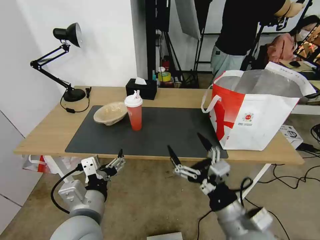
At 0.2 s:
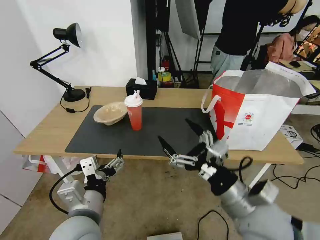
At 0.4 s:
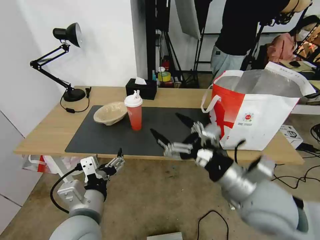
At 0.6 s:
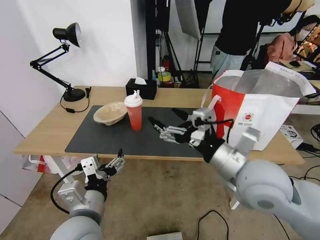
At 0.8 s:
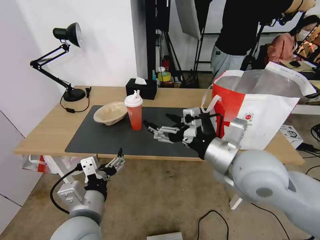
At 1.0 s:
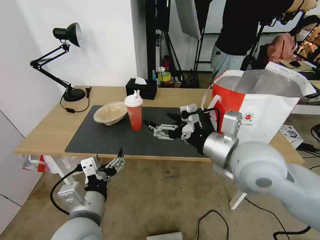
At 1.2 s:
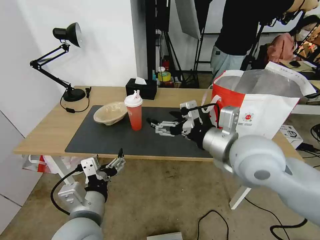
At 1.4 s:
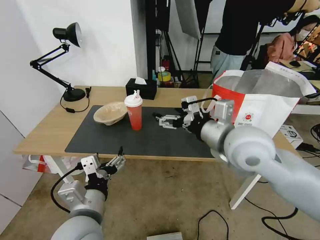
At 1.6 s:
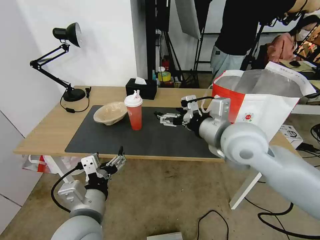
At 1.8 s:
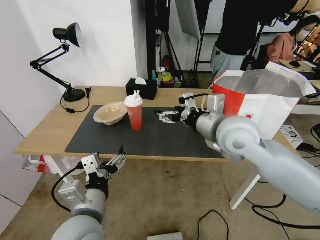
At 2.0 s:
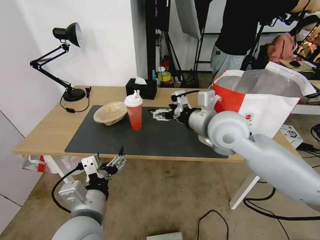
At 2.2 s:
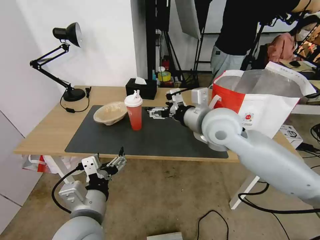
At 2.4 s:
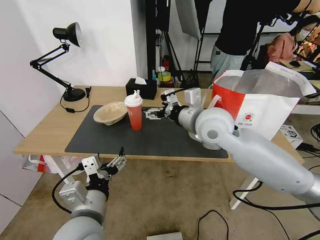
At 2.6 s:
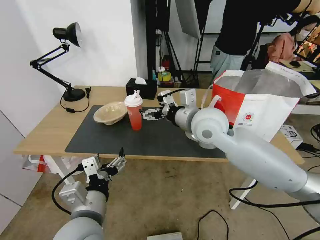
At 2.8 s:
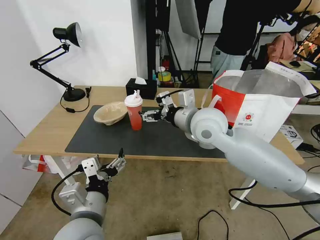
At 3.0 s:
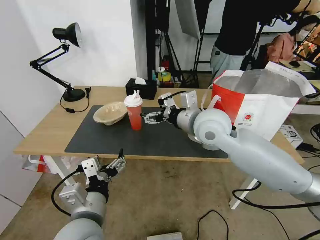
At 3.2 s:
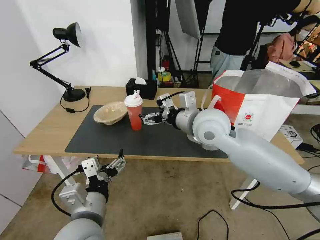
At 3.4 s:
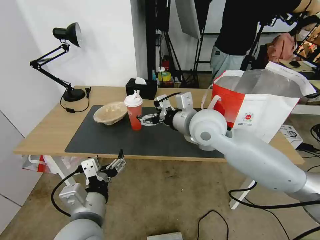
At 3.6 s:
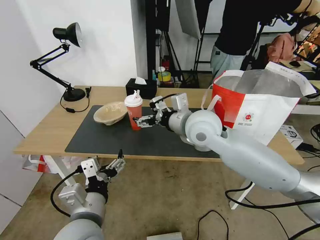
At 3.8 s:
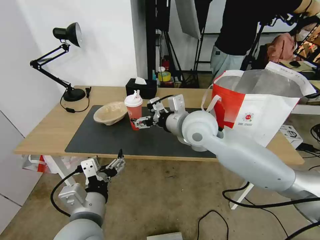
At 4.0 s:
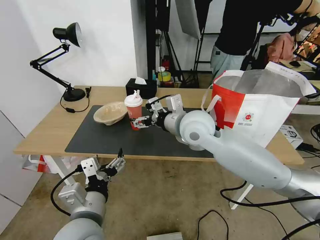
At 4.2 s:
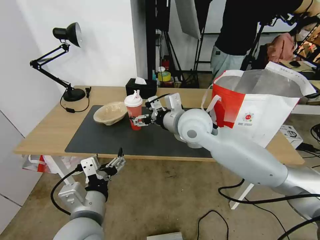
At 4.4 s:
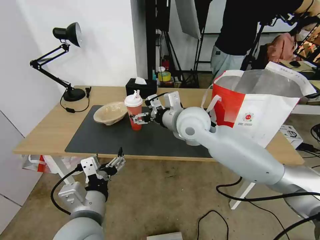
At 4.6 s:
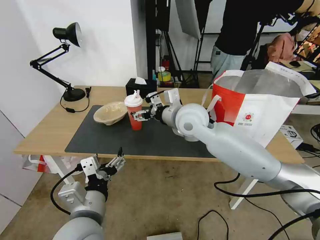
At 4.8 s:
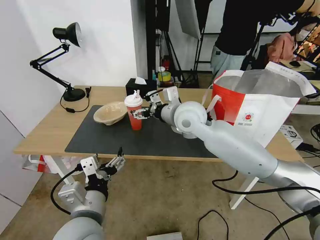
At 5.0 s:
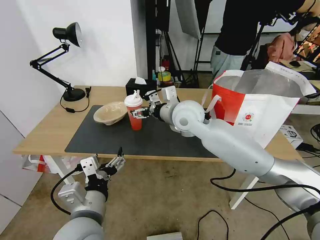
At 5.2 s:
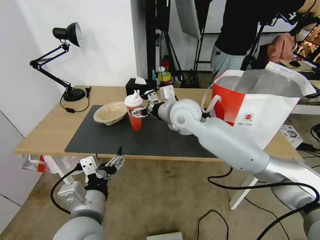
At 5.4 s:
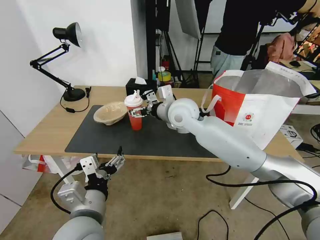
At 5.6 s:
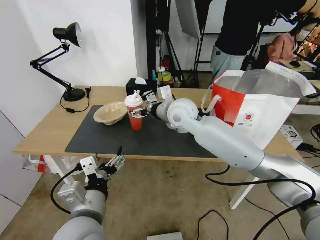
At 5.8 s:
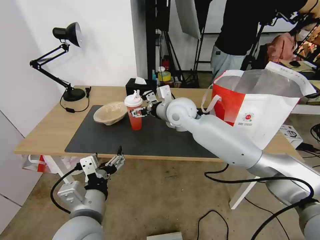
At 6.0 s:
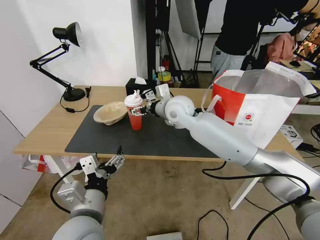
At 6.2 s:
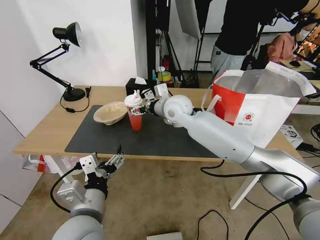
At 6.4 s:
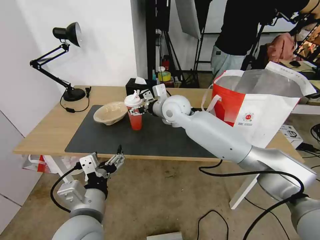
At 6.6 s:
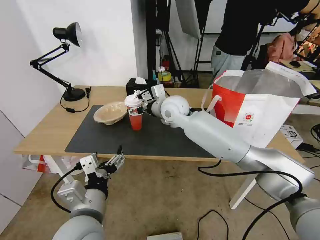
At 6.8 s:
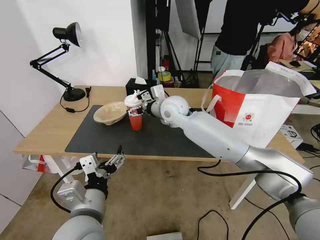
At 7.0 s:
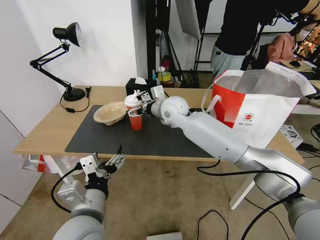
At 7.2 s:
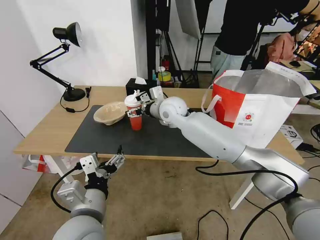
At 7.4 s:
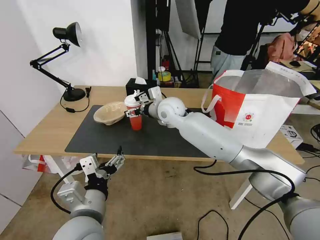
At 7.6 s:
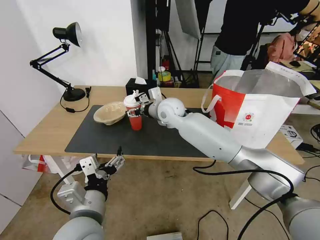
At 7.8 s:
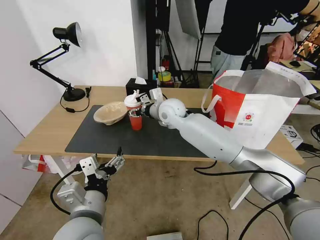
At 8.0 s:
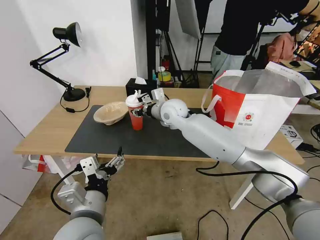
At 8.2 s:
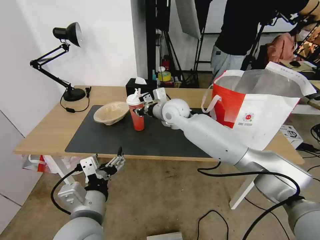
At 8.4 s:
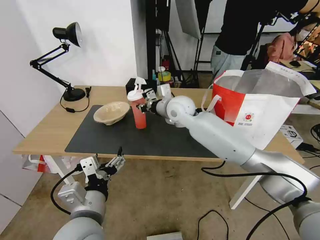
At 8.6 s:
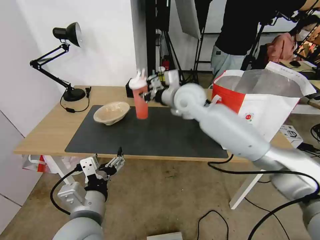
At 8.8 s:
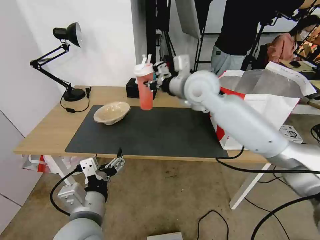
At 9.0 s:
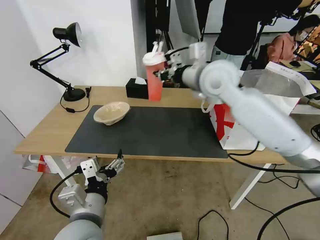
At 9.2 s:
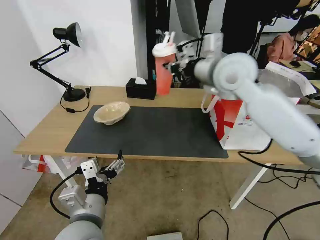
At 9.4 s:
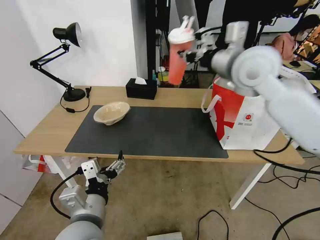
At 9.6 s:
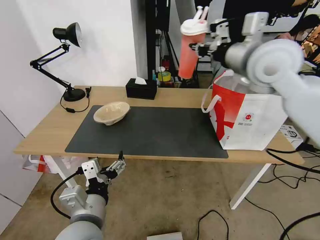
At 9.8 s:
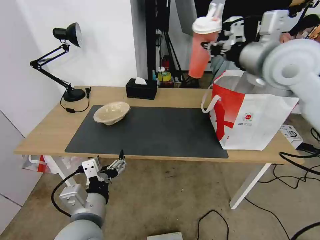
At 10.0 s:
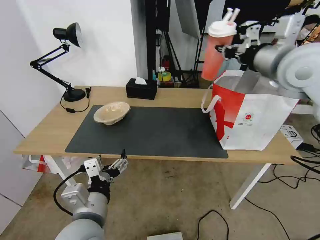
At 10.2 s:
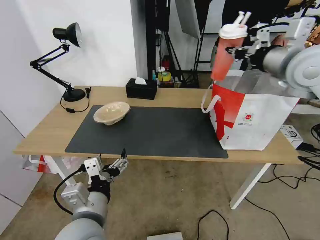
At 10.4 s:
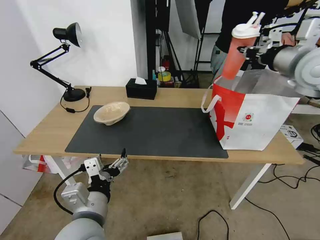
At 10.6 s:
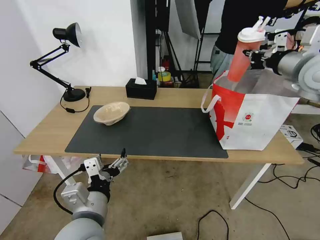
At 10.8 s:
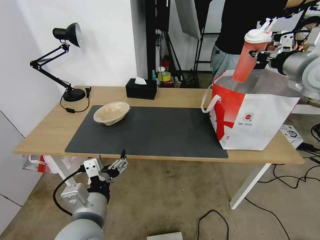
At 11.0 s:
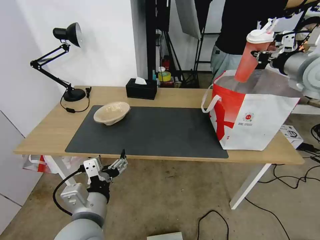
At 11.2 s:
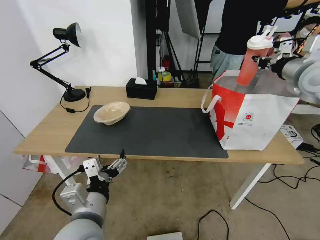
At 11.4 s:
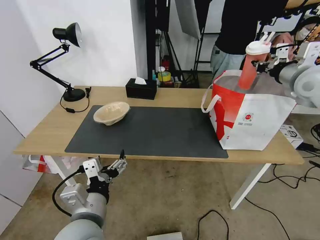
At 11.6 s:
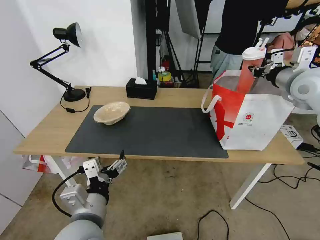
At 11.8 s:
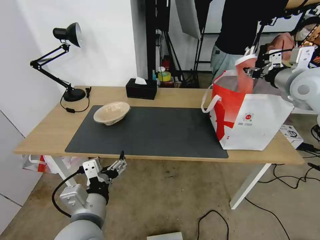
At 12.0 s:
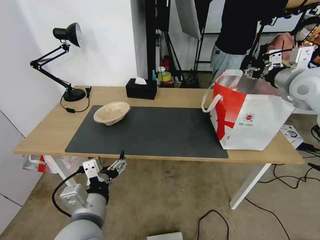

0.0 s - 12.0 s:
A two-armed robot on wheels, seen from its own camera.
Task of the whole recording: Pick up the trash from the table and place it into the takeout bag.
0.0 s - 1.6 s: The right gripper heads forward and upward, covering some 25 cm.
1.6 s - 3.0 s: The right gripper travels forward and to the left by some 10 cm.
3.0 s - 4.4 s: The right gripper shifts by some 5 cm.
4.4 s - 6.0 s: The right gripper heads forward, covering some 10 cm.
6.0 s - 7.6 s: The grippers make only small movements.
7.6 s - 9.0 s: The right gripper heads upward, to the right and backward, covering some 20 cm, and closes its fingers.
9.0 s - 10.4 s: The right gripper heads to the right, covering about 20 cm.
10.4 s - 12.0 s: The right gripper shifts about 5 cm downward, and opens its fingers.

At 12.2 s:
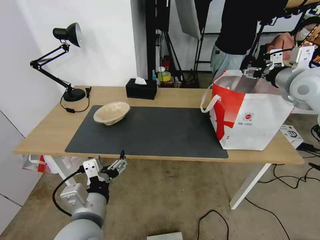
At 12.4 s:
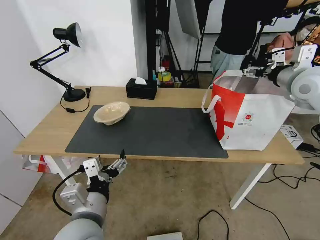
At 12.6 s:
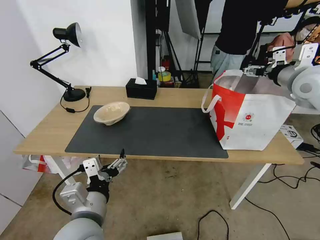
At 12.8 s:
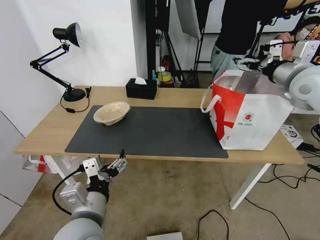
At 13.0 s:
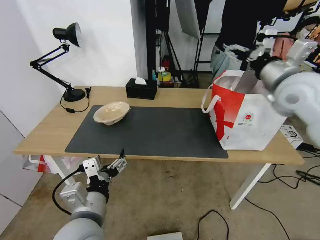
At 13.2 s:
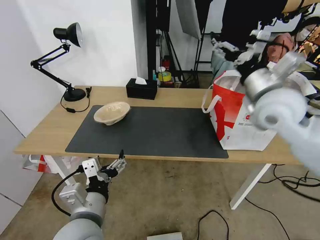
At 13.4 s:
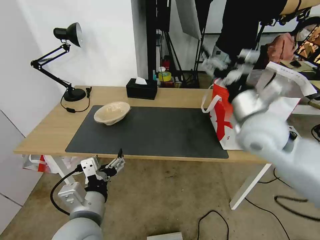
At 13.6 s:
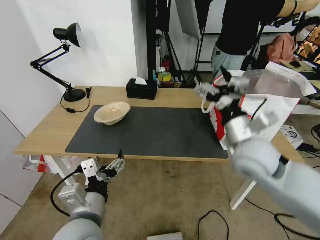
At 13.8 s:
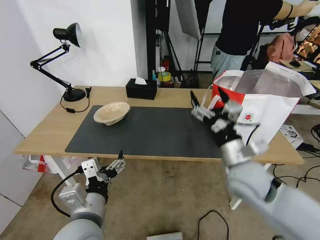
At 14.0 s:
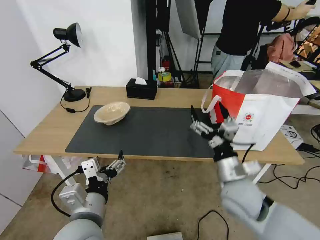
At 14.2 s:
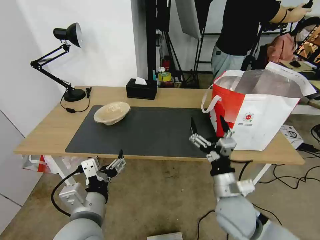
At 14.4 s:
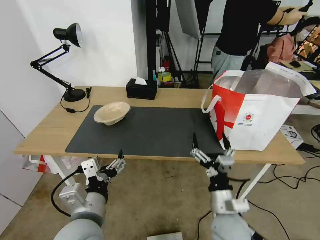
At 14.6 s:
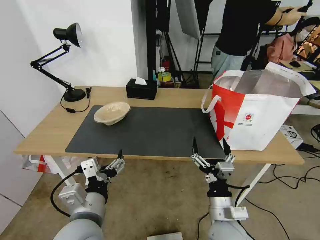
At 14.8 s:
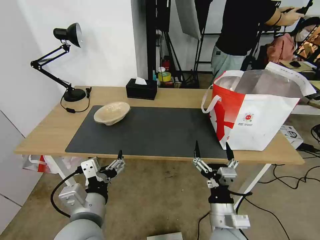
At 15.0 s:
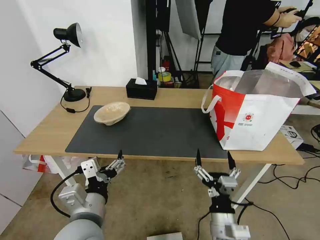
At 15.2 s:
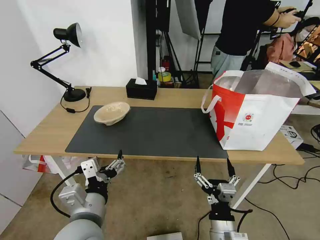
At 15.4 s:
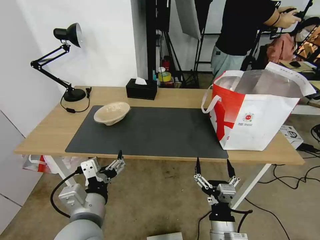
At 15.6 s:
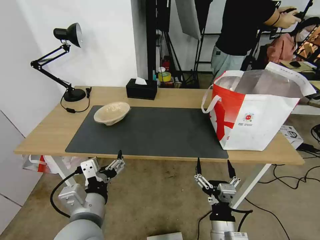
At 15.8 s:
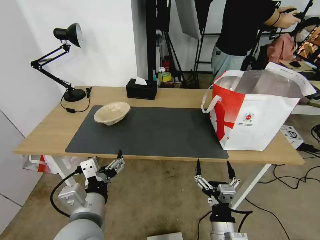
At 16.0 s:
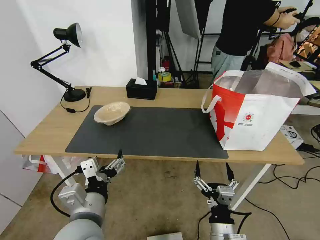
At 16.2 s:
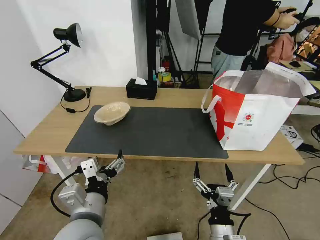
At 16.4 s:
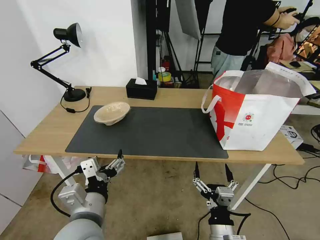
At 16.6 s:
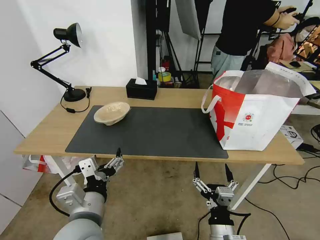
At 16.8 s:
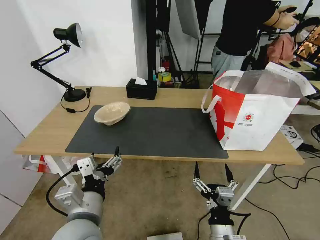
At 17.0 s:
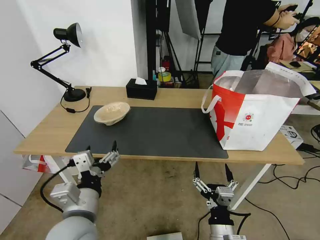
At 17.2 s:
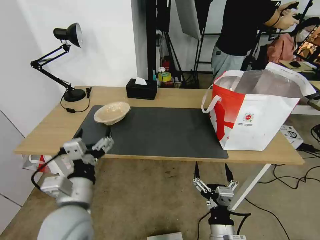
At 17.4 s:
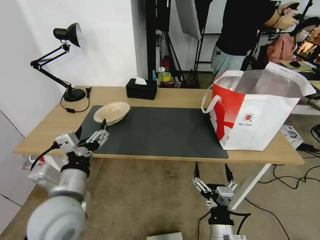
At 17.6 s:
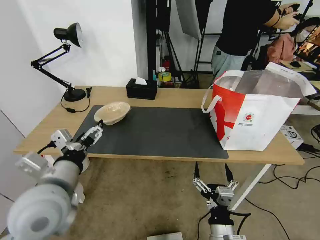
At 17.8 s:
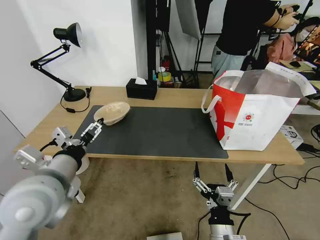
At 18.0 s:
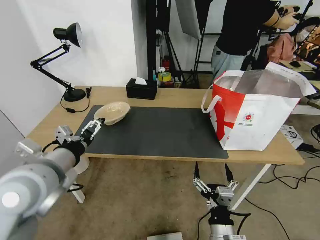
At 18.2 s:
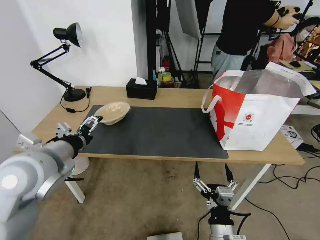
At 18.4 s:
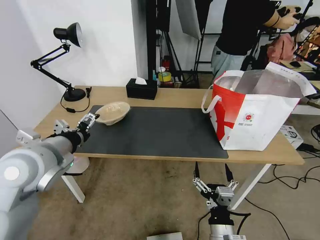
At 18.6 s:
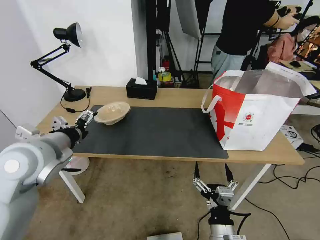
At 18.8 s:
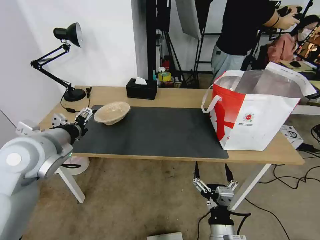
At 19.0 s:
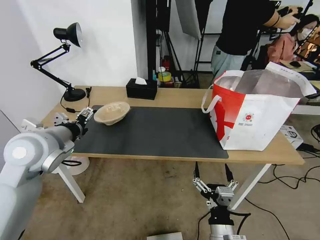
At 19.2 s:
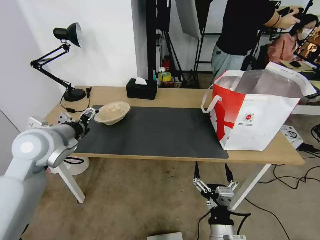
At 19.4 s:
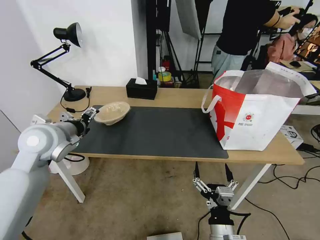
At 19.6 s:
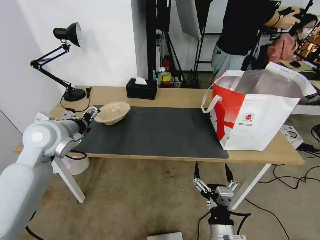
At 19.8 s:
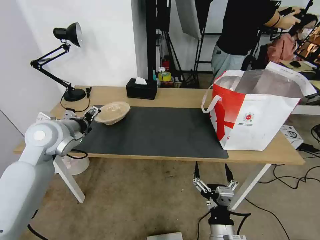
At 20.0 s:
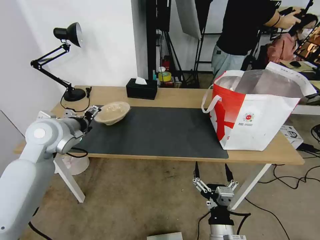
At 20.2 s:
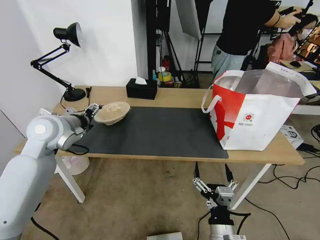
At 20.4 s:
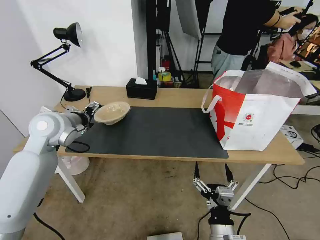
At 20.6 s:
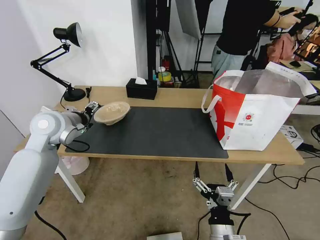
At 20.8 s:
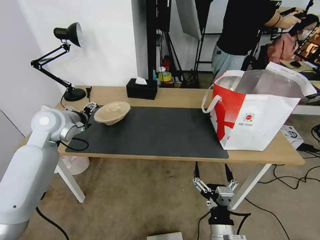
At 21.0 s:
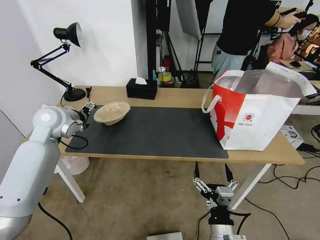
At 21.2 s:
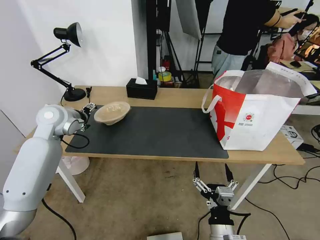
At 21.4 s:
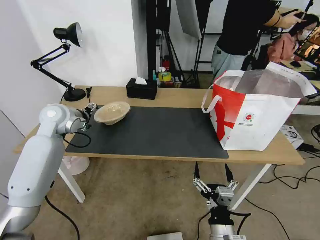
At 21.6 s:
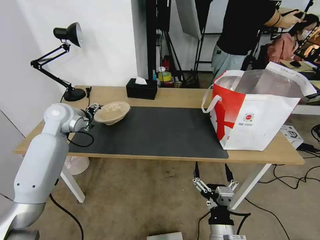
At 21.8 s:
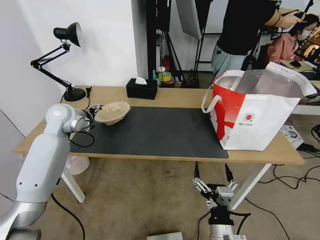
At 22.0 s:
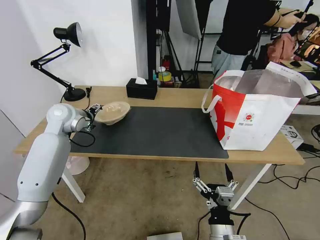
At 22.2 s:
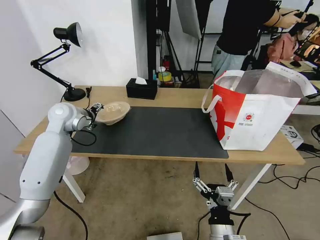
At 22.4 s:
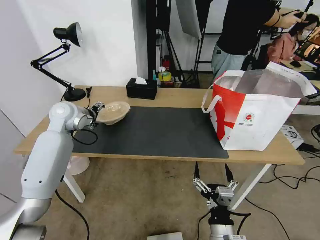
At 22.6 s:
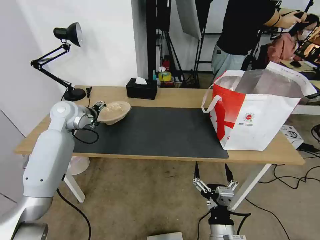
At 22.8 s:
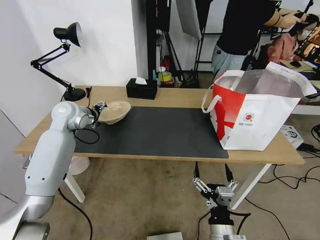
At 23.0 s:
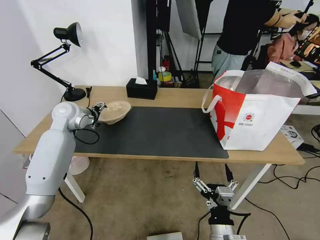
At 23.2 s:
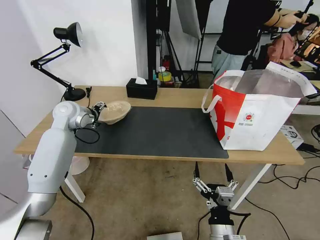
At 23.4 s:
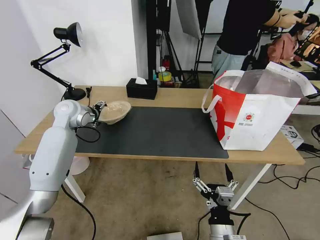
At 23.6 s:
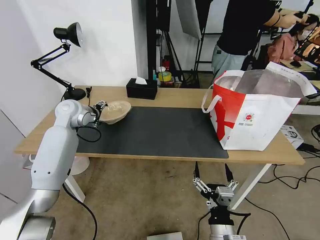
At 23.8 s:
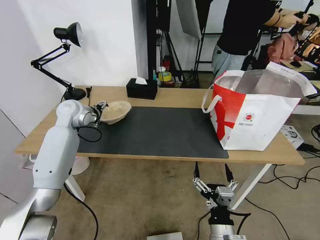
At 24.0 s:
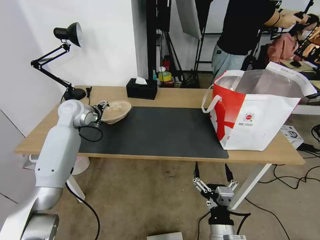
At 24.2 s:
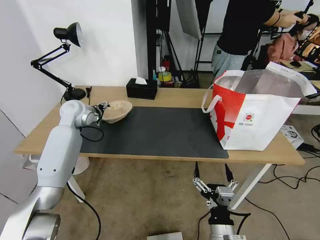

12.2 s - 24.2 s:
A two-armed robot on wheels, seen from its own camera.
Task of the whole recording: Pick up the trash from the table and place it into the takeout bag.
12.2 s - 13.8 s: The right gripper is displaced downward, to the left and backward by roughly 30 cm.
13.8 s - 15.2 s: The right gripper moves backward and downward, approximately 20 cm.
15.2 s - 16.6 s: Both grippers stay about where they are.
16.6 s - 18.2 s: The left gripper moves forward, to the left and upward, approximately 20 cm.
18.2 s - 19.8 s: The left gripper goes about 10 cm forward.
19.8 s - 21.2 s: The left gripper travels forward by some 10 cm.
21.2 s - 22.6 s: The grippers stay close to where they were, moving slightly.
22.6 s - 24.2 s: There are only small adjustments of the grippers.
